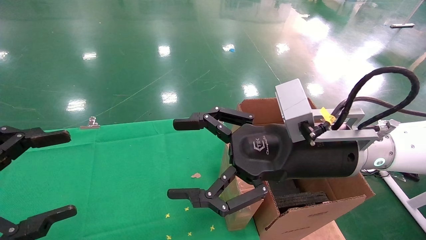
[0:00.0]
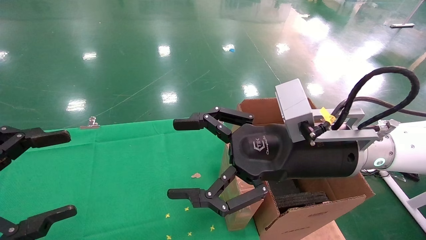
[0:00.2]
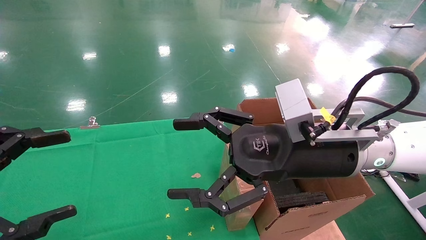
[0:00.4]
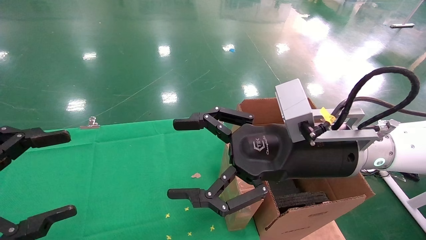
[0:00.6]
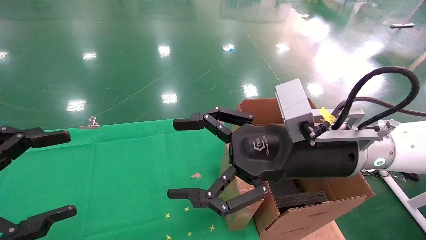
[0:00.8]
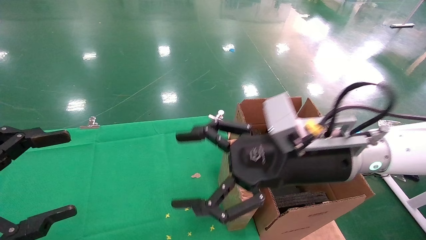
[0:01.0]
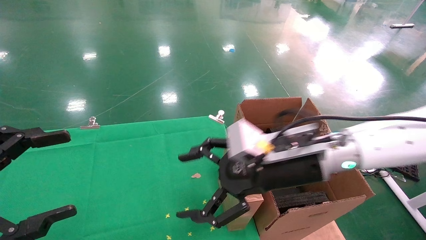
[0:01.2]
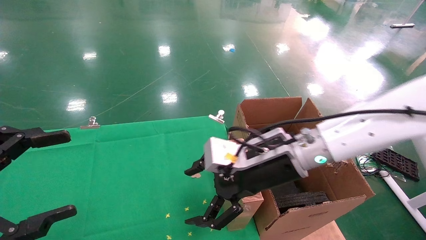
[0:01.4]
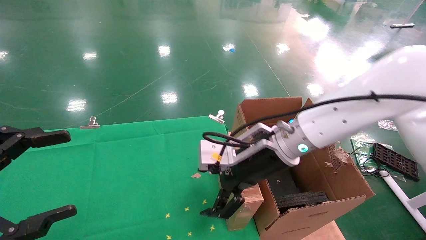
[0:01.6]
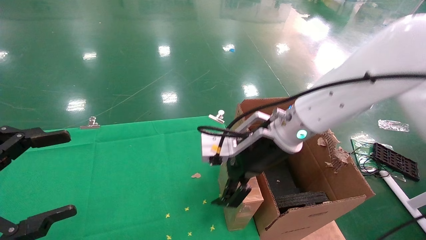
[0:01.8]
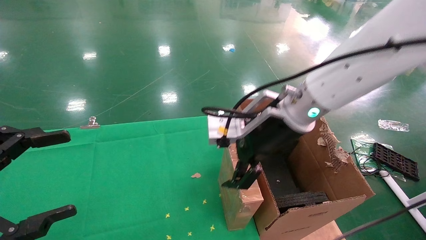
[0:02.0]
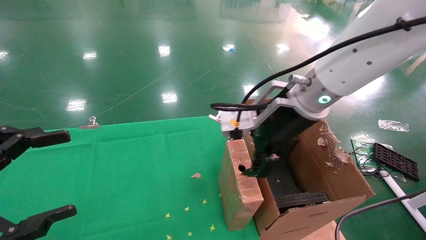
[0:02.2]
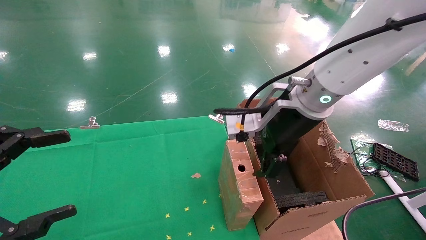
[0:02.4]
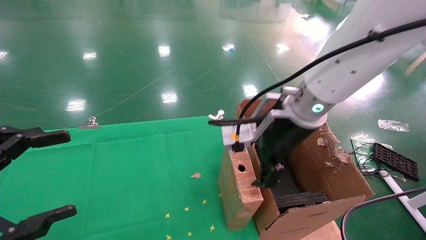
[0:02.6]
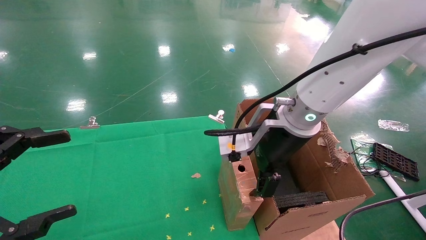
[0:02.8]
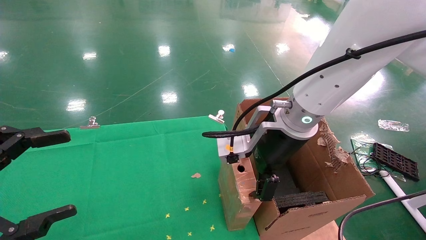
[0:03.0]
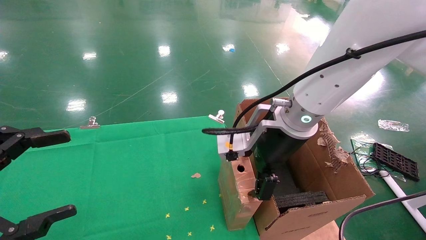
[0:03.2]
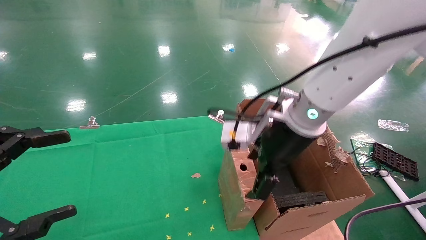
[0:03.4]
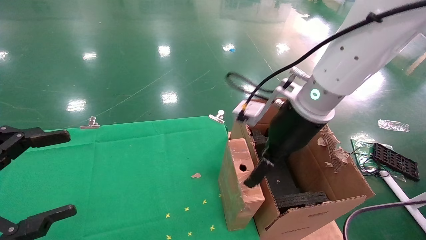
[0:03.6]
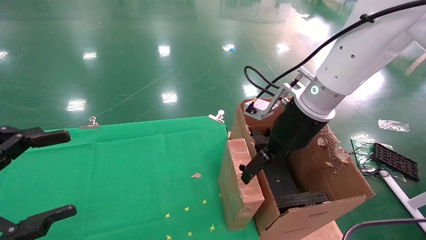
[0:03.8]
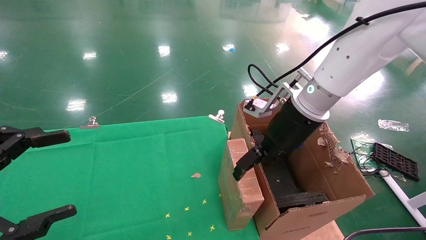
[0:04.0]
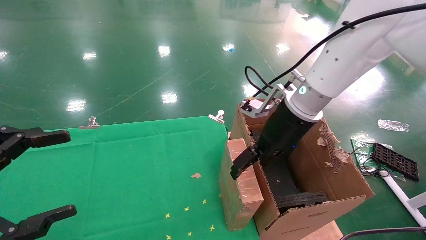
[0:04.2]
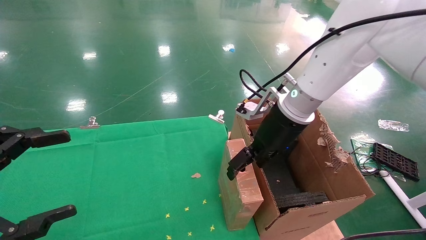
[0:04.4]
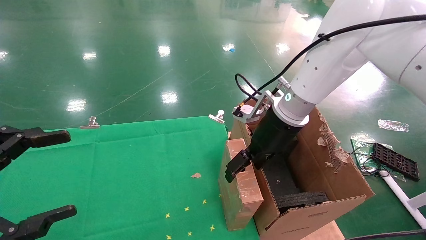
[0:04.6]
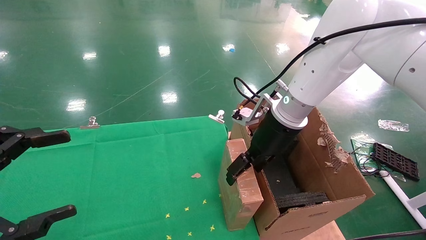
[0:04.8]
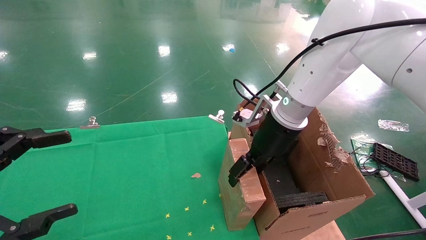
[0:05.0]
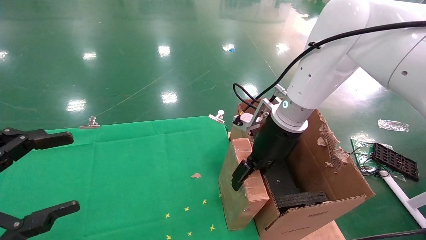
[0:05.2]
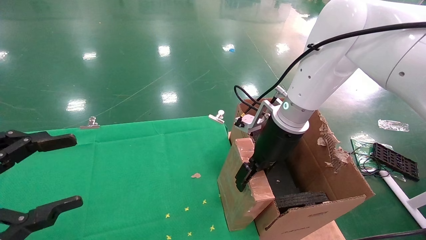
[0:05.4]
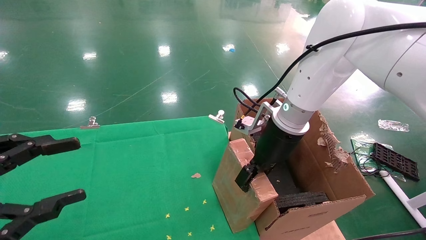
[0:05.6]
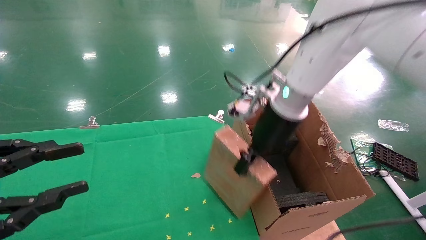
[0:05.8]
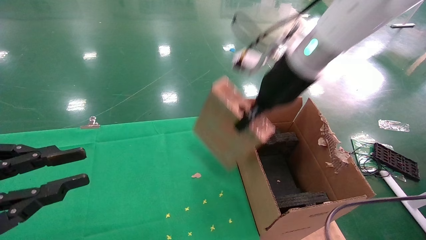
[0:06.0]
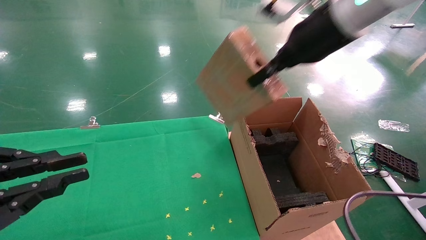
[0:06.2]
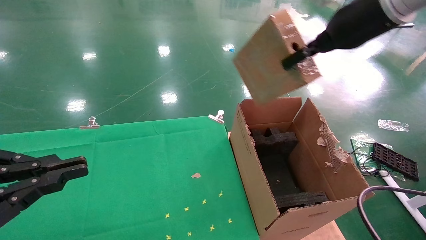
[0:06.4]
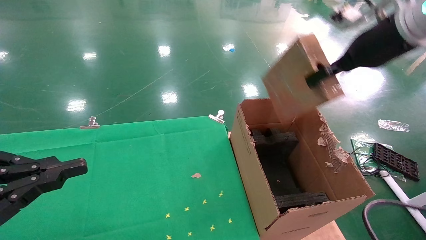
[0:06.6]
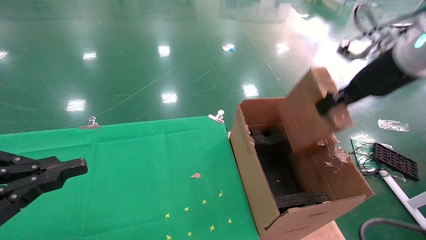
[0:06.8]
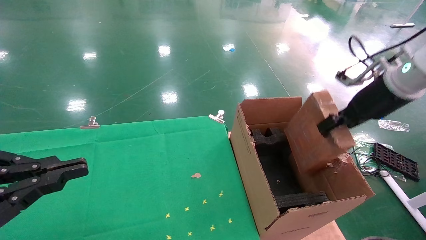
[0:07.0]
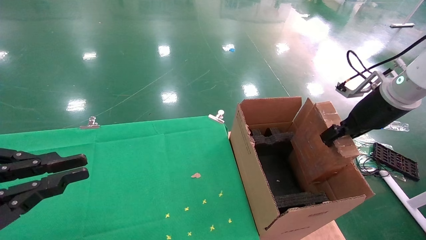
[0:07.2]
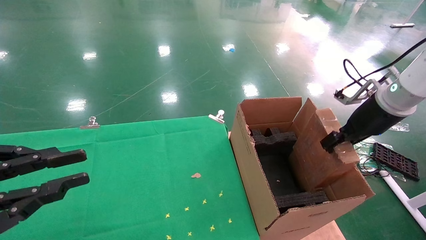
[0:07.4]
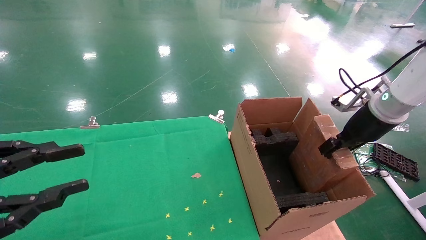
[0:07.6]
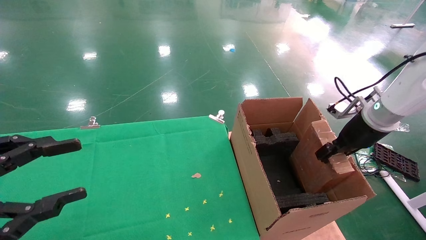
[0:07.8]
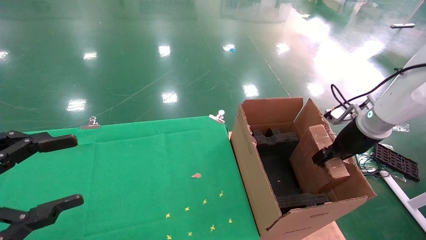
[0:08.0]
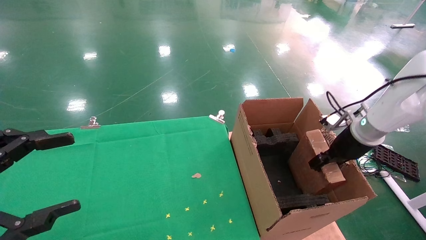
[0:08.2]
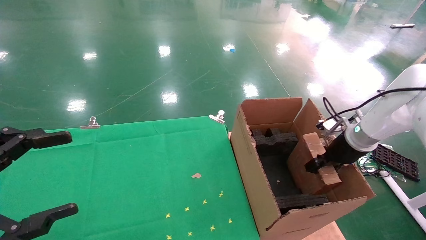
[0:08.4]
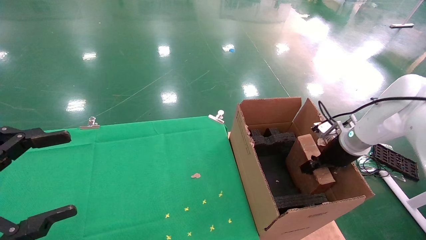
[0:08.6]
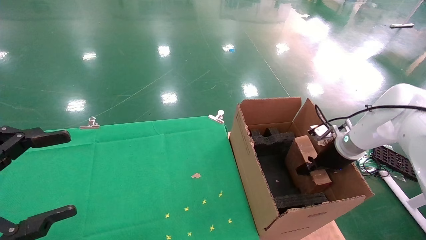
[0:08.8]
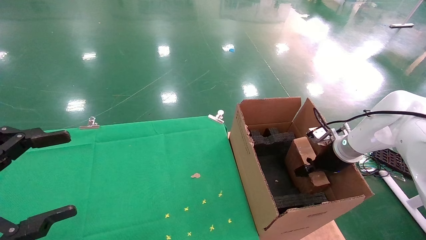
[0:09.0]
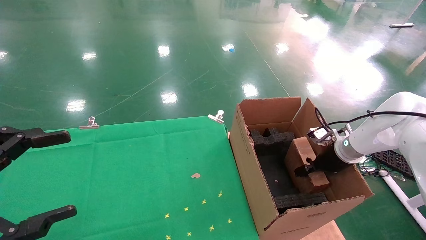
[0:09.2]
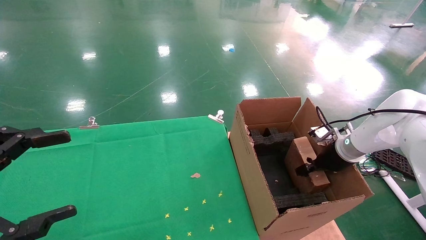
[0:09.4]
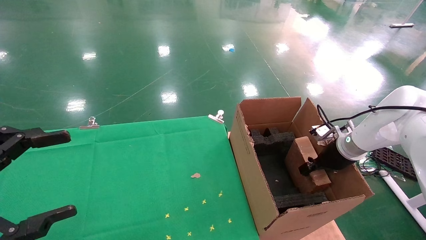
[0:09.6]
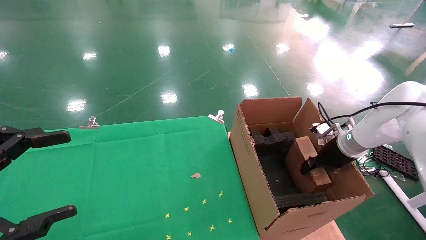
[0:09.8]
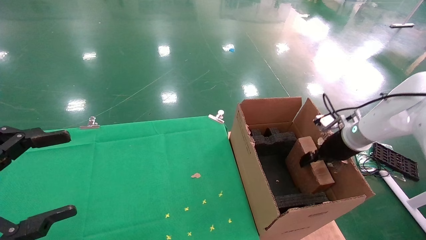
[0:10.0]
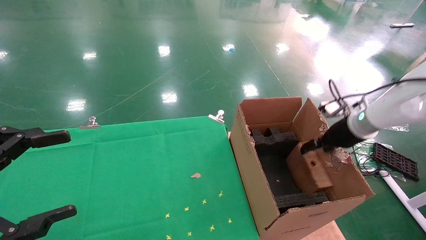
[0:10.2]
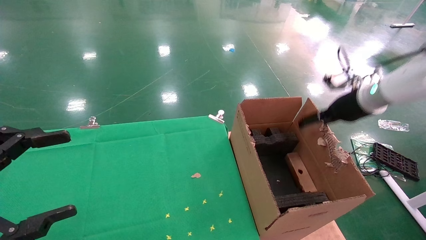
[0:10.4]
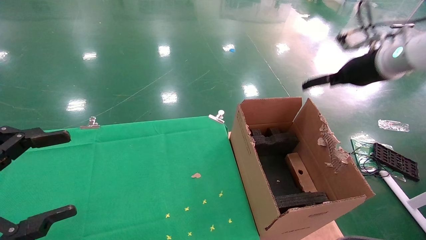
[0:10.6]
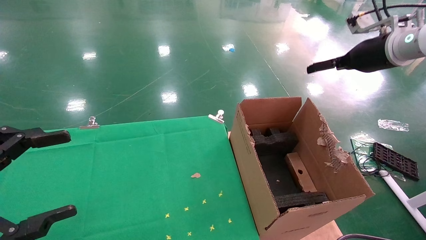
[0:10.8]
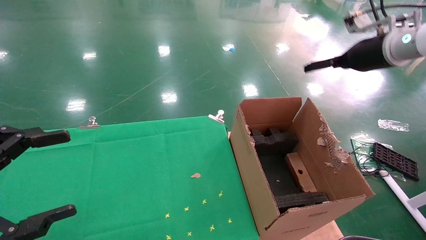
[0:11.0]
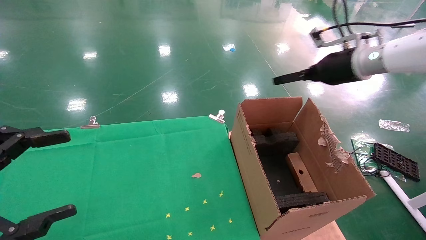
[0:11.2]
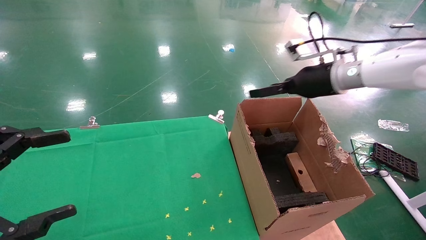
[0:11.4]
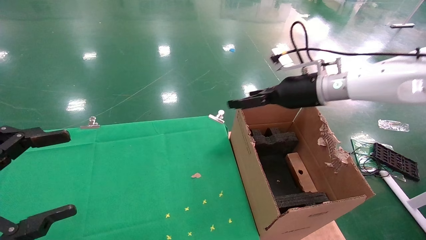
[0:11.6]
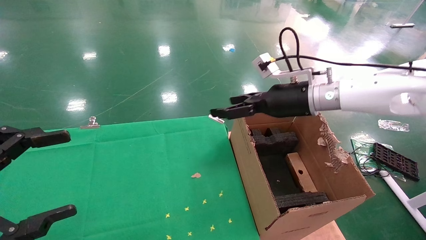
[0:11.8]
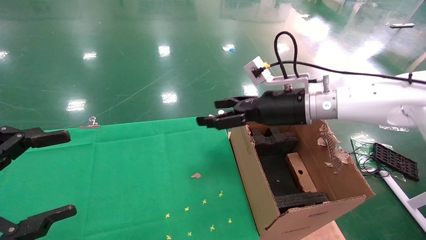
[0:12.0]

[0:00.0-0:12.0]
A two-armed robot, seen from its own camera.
Task of the whole recording: using a robotic arm to pick up a cardboard box and palace it the carton.
Step, 0.8 to 5.2 s: Pick up the mouse and the power cord paper box.
Step, 5.4 to 10.0 s: Place the mouse and the power cord paper box into the container.
0.0 to 1.6 s: The right gripper goes some 5 cm forward.
3.0 to 4.4 s: The right gripper goes roughly 5 cm forward.
4.4 to 6.0 s: The left gripper closes its fingers; the right gripper moves upward, approximately 10 cm, and closes up.
6.0 to 7.6 s: The right gripper heads to the right and downward, covering approximately 25 cm.
7.6 to 9.0 s: The left gripper opens up, while the right gripper moves downward and forward, some 15 cm.
9.0 to 10.4 s: The right gripper heads upward, covering some 15 cm, and opens up.
10.4 to 12.0 s: The right gripper heads to the left, covering approximately 20 cm.

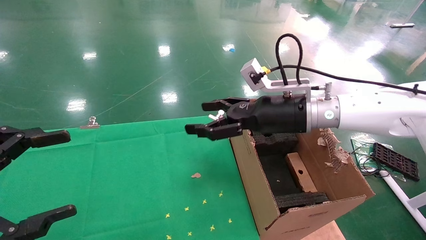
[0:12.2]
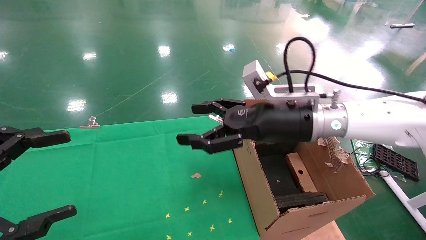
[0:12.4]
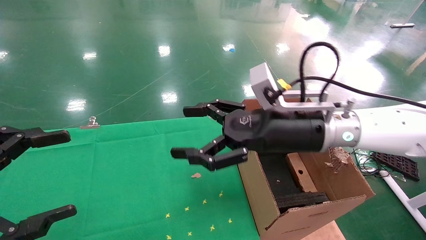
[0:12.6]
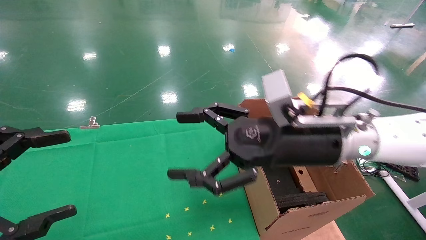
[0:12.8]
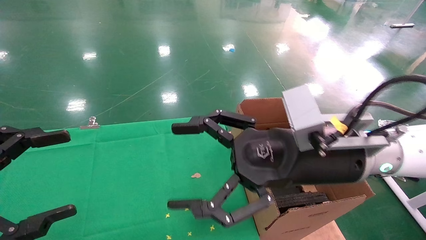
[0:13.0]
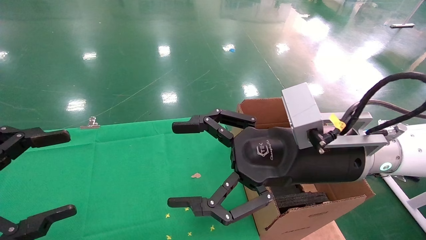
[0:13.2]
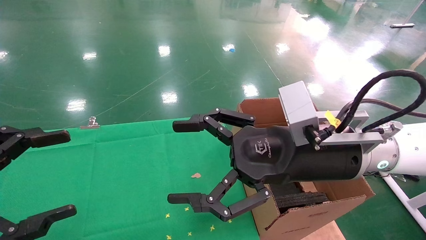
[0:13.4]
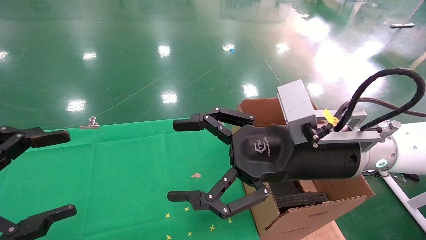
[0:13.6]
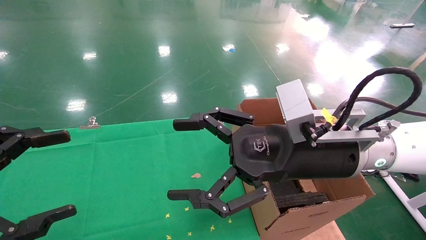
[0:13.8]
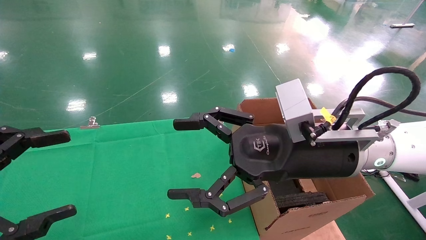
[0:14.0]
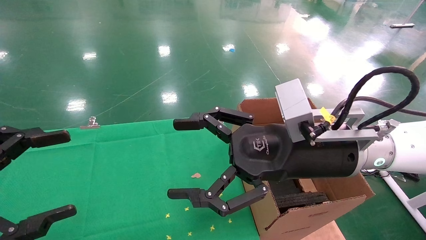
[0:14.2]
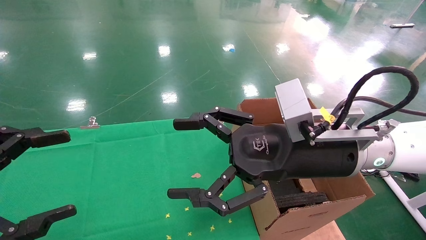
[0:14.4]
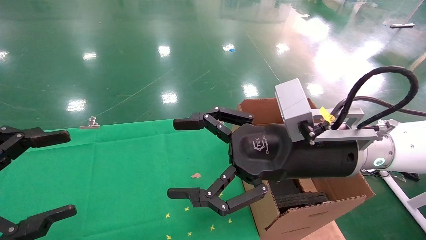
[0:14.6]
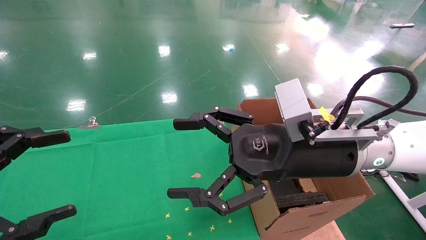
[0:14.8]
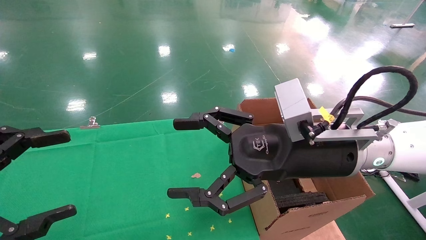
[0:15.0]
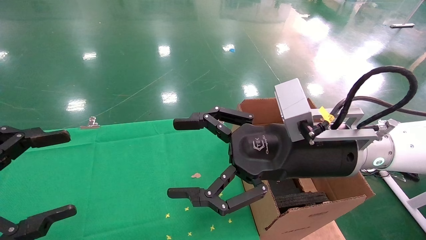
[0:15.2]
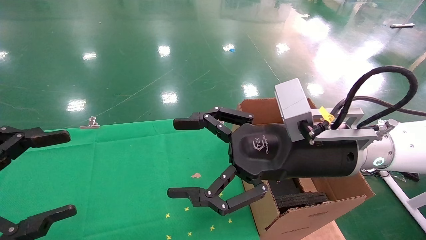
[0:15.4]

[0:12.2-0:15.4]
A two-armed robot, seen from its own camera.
Task of the whole recording: using a robotic arm to pick up a cardboard box and palace it the carton.
12.2 to 13.8 s: The right gripper goes roughly 10 cm backward.
13.8 to 15.4 s: Neither gripper changes place.

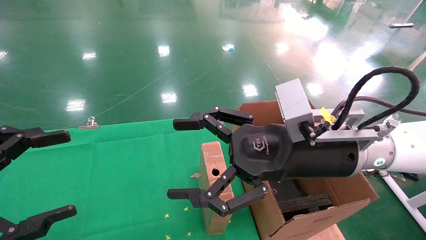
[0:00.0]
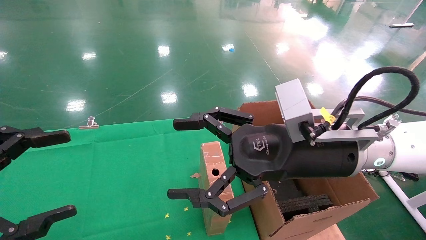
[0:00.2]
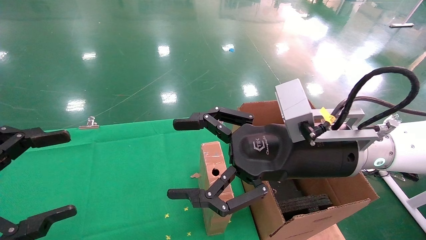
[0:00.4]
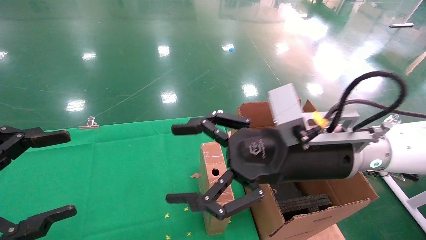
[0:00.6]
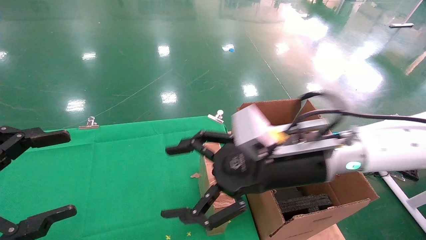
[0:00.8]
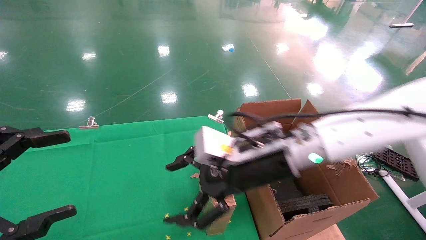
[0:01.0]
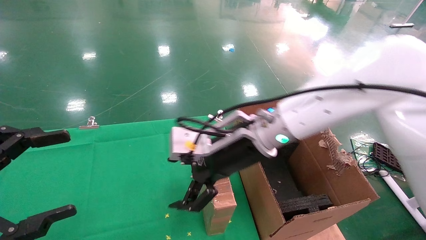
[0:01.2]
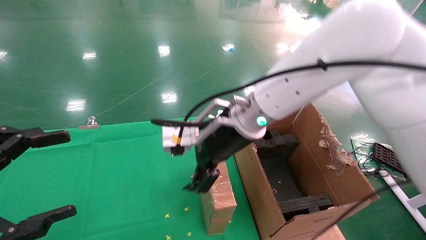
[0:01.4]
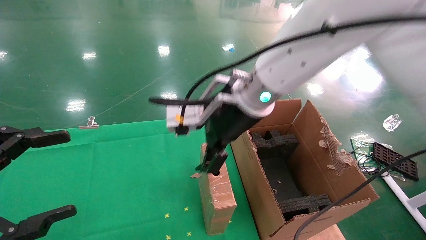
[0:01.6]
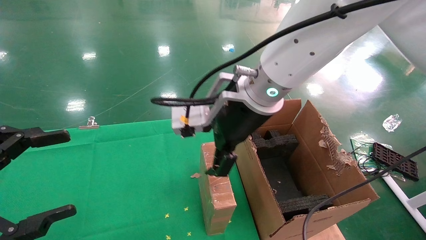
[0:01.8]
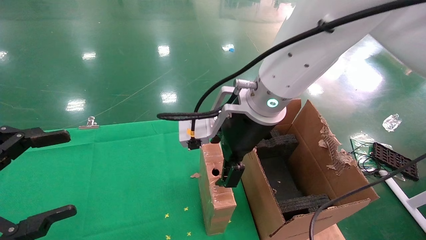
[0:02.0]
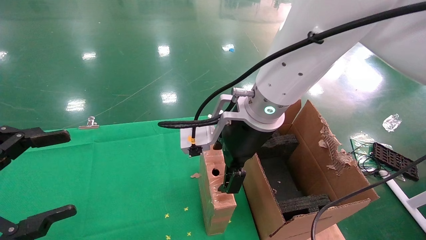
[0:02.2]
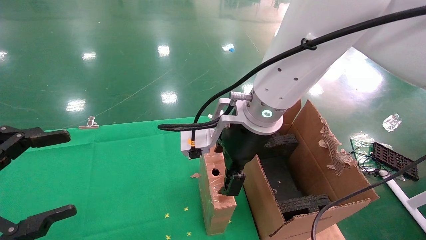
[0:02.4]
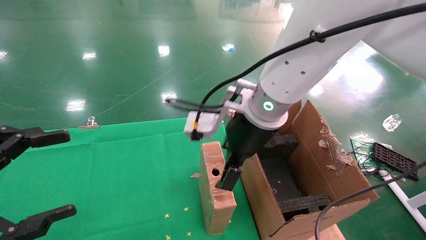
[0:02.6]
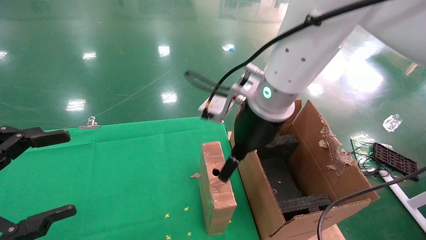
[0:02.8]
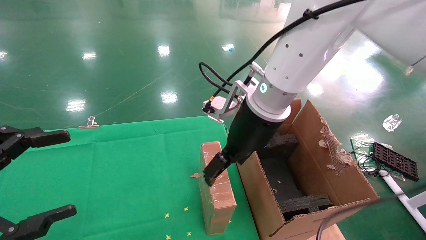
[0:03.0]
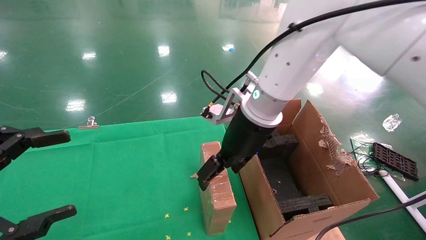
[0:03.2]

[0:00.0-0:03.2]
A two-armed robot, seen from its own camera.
Task of the whole recording: using a robotic arm to pick up a cardboard box and palace it the carton.
0.0 to 1.6 s: The right gripper is displaced to the left and forward by some 15 cm.
